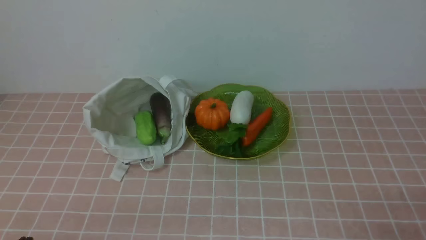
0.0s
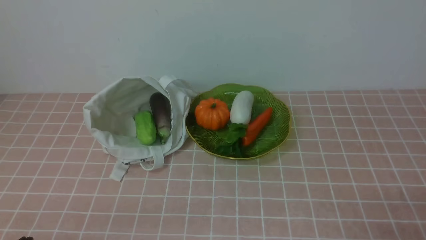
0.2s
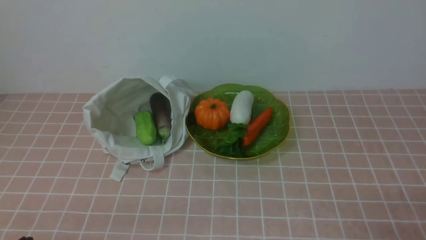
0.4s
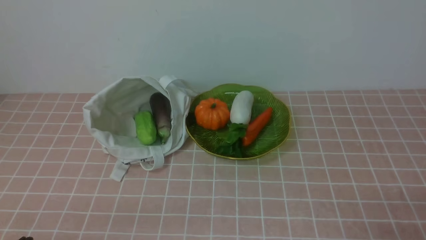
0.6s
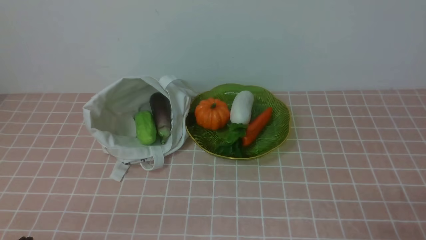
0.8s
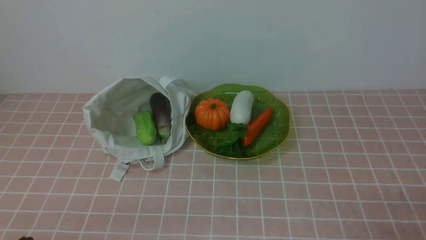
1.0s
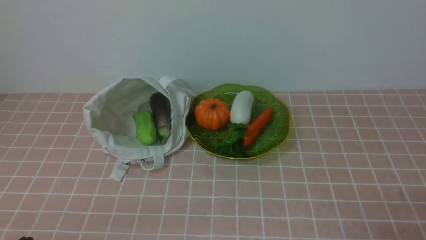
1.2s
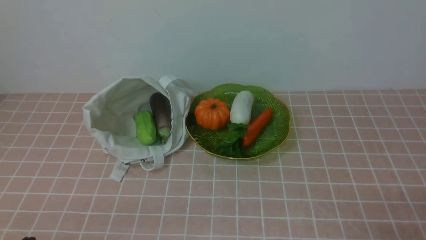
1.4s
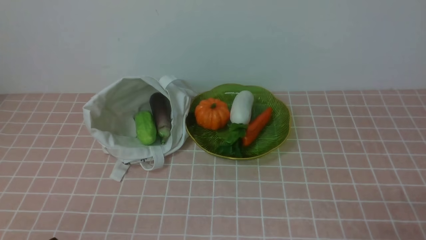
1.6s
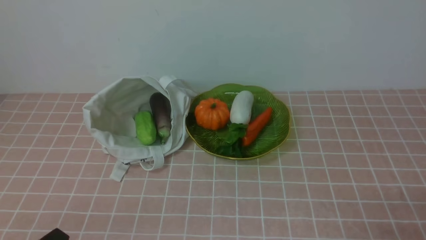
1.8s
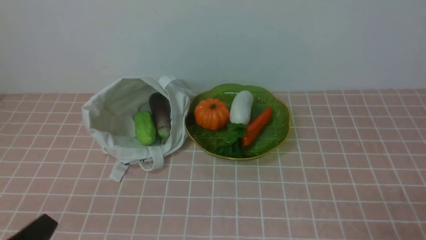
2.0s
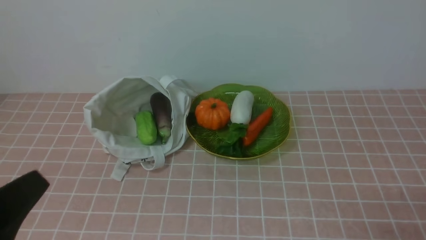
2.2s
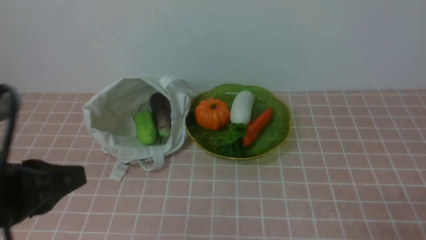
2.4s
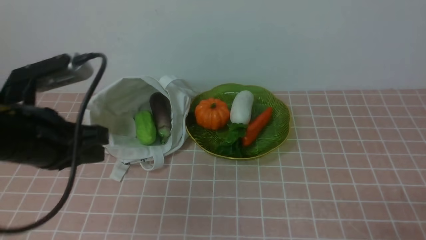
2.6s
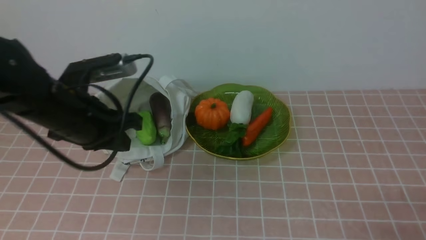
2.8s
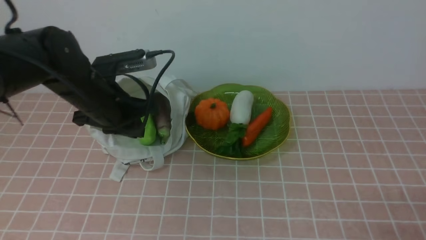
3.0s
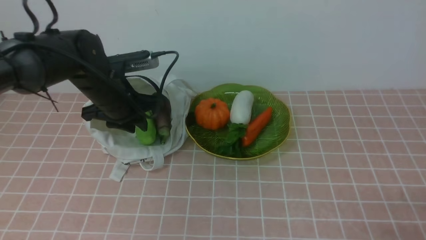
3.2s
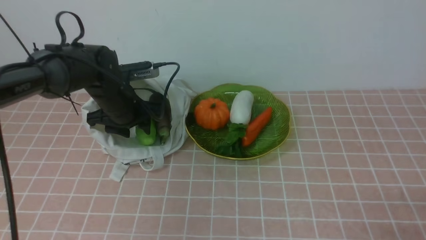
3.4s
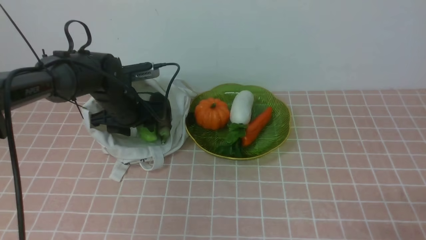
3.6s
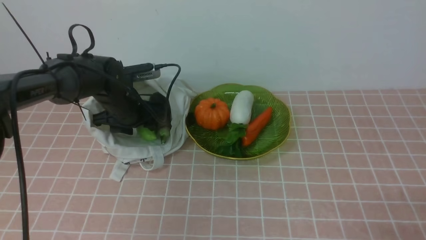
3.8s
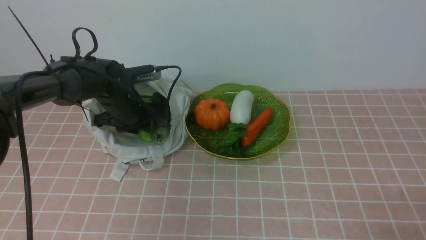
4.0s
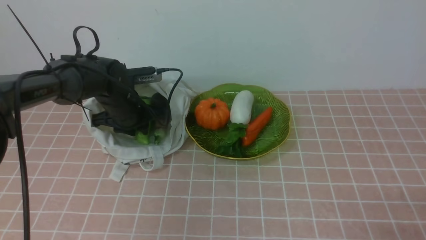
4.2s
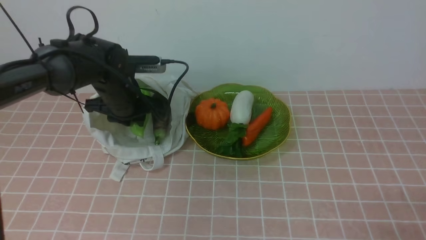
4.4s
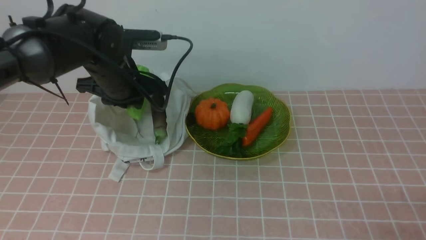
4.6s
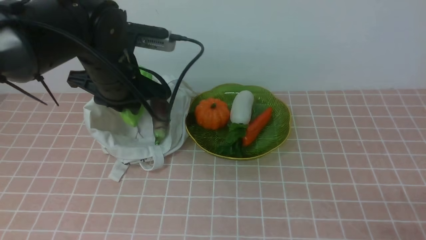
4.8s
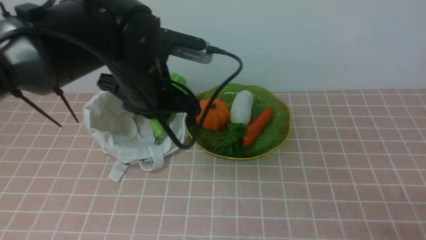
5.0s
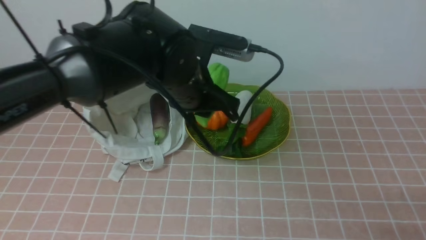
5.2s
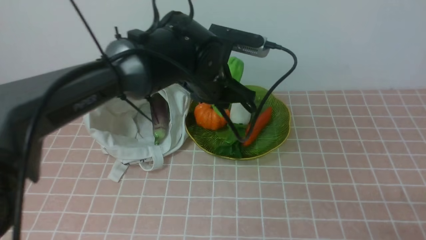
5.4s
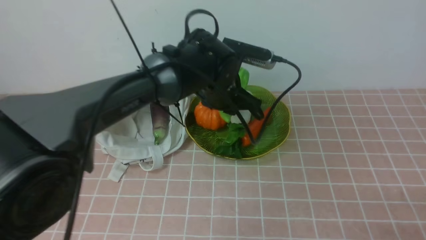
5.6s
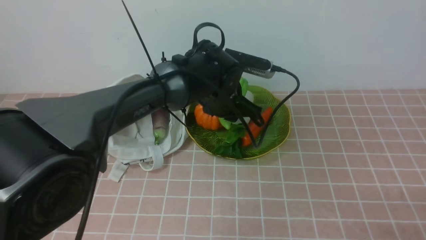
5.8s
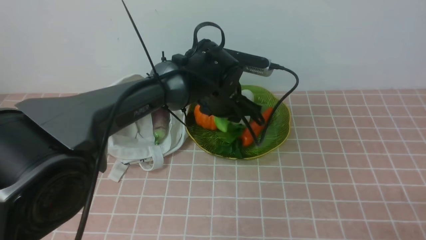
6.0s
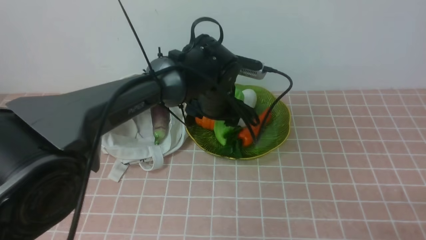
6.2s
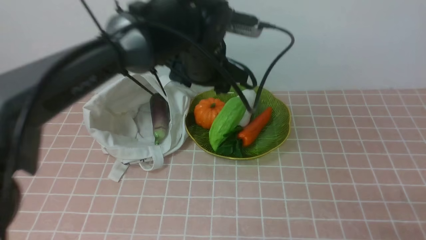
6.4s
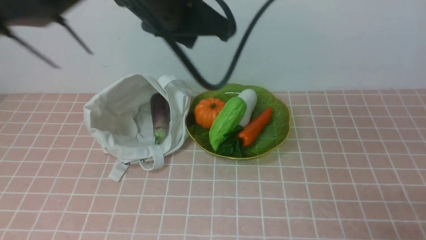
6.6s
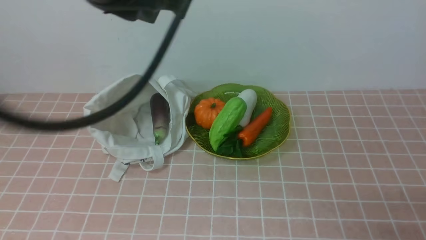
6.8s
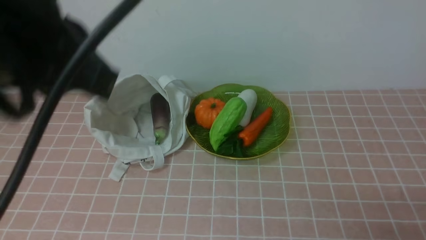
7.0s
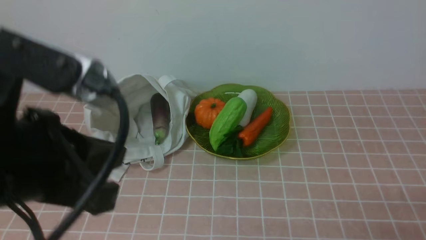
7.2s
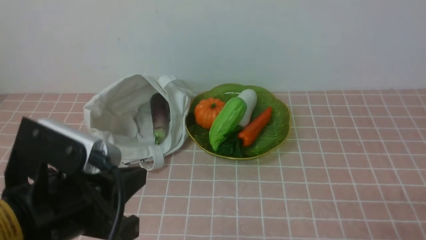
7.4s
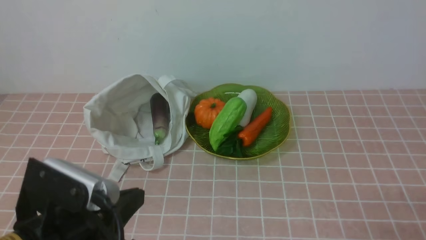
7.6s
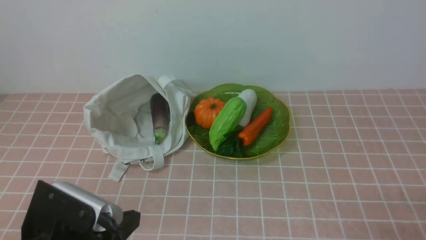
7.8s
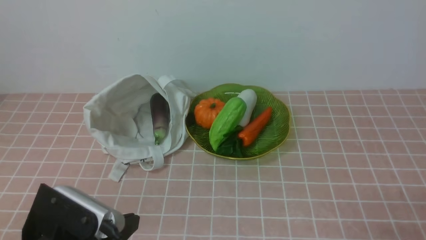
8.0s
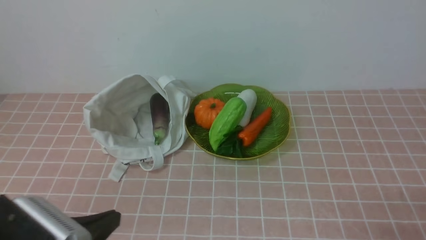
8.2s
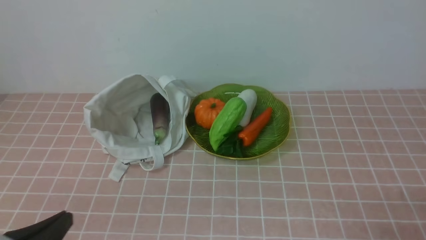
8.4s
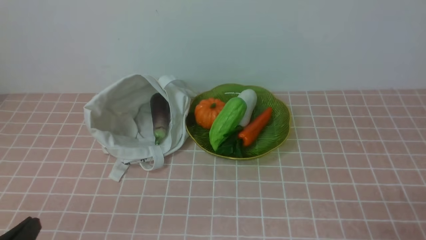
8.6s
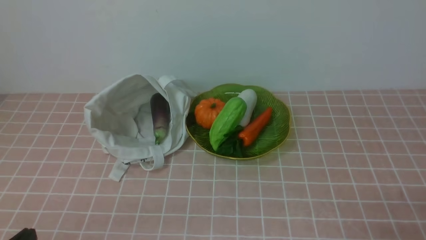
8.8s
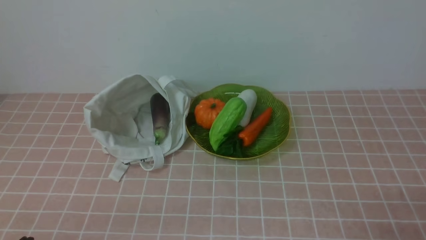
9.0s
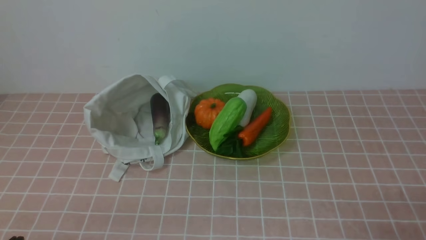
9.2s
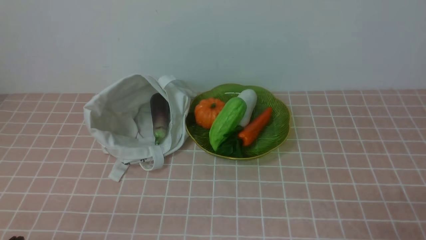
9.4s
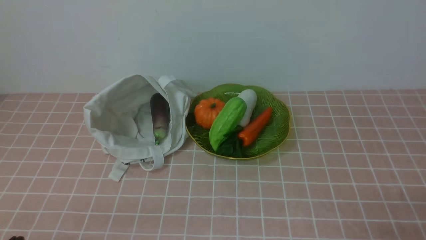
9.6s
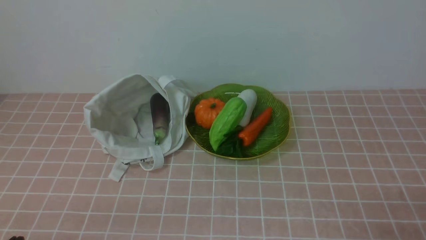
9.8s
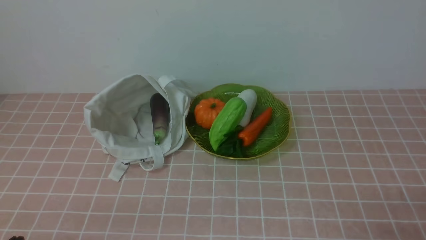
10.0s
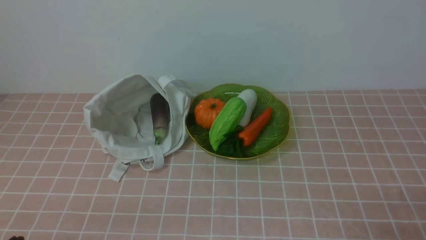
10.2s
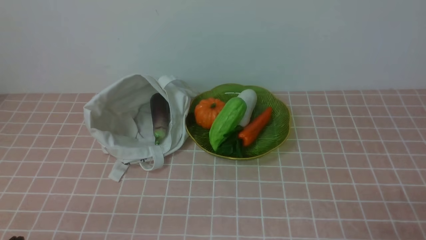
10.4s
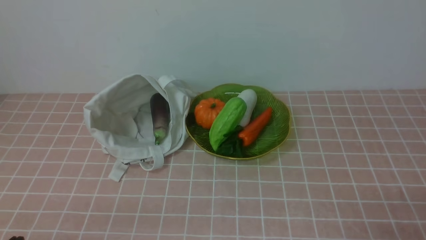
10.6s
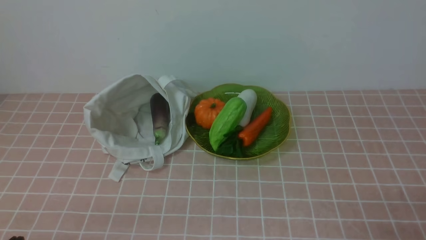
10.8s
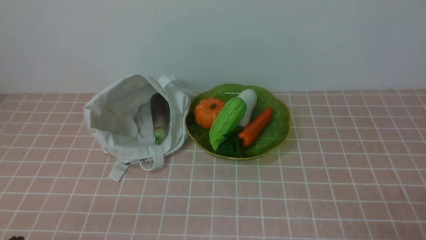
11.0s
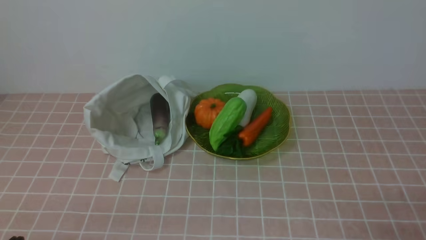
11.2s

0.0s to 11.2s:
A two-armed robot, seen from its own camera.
Task of the whole recording: take vegetables from bag on pink coffee tablecloth place on plate.
Step, 0.0s to 3.8s: Grasp the bitter melon with left gripper.
Step, 4.2s to 6.4s: Place the bitter melon on the plate with left gripper.
1.6s to 3.2s: The left gripper is displaced forward by roughly 35 cm, and opens up.
3.2s to 4.8s: The left gripper shifts roughly 5 cm upward, and opens, then closes once more.
4.8s to 6.4s: The left gripper heads to the right, covering roughly 10 cm, and opens.
6.4s to 8.0s: The left gripper is displaced backward and to the left by some 30 cm, and closes its fingers.
8.0s to 9.6s: The left gripper travels to the left and backward by roughly 10 cm.
9.6s to 11.2s: Both grippers stay put.
